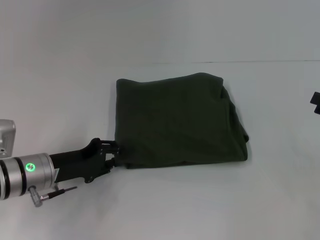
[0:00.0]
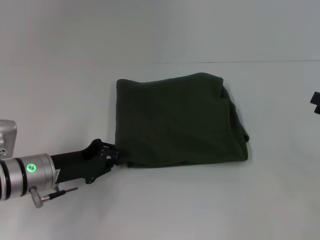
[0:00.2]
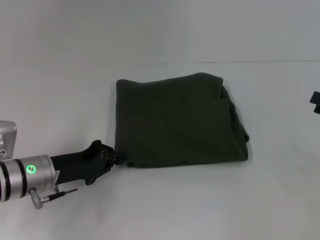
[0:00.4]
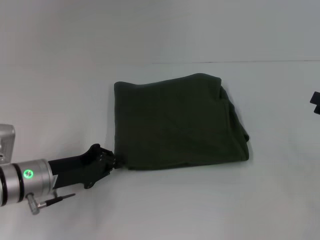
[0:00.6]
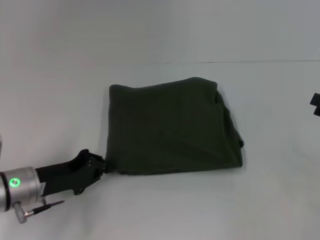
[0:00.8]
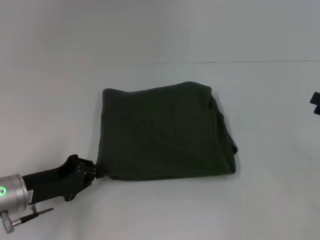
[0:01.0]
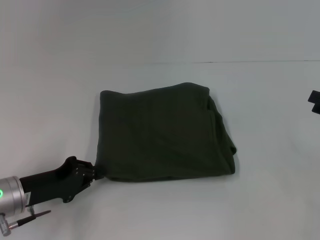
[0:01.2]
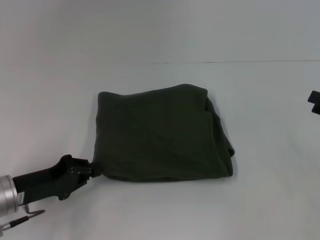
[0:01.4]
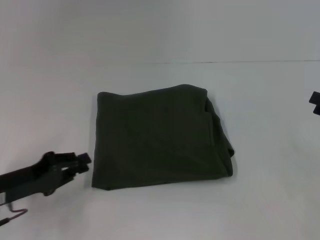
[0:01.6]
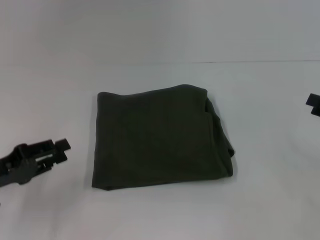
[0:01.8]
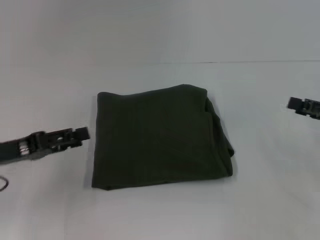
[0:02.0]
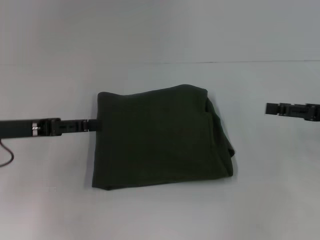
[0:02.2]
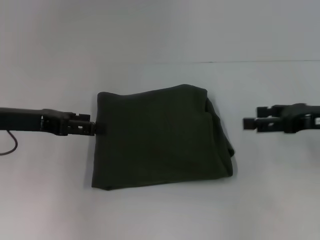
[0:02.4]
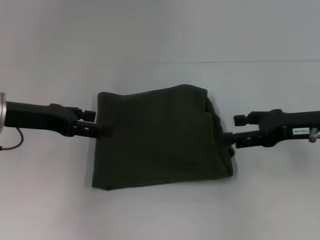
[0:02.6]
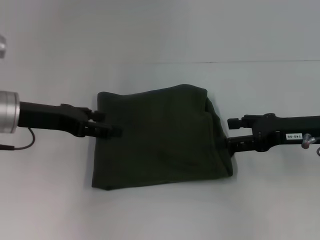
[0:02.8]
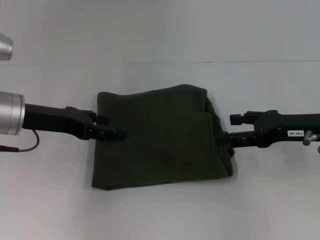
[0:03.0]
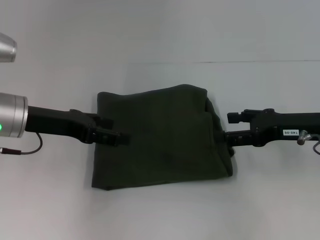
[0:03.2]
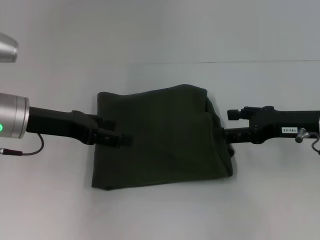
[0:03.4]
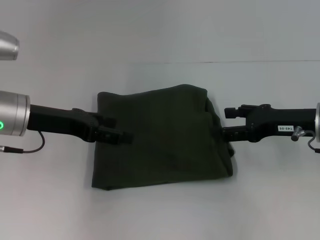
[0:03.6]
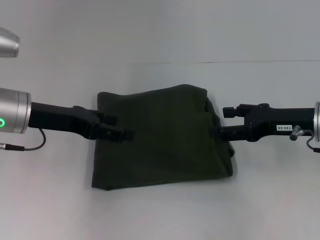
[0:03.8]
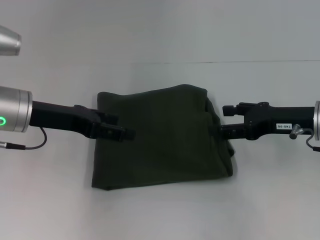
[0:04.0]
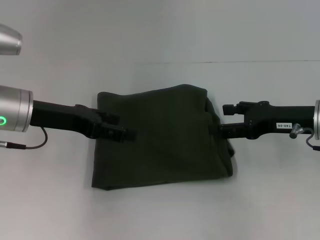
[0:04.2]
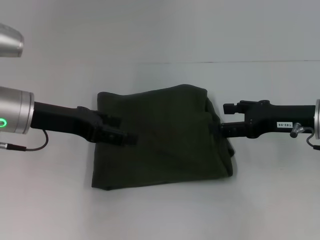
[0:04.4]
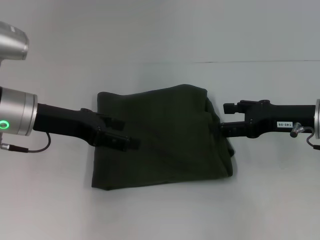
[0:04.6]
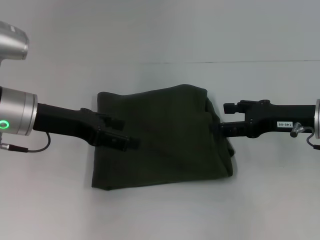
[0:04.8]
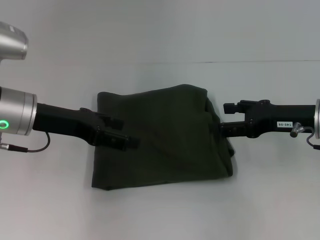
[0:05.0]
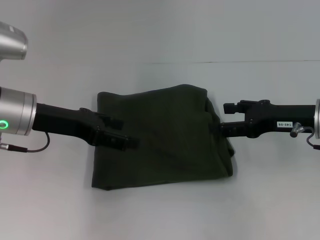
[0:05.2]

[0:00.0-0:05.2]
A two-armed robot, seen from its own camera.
0:00.0 to 0:01.8: The left gripper shifts approximately 10 cm to the left and backward, and closes.
0:01.8 to 0:03.4: The left gripper travels forward, upward and to the right by about 15 cm, and opens up, while the right gripper shifts approximately 10 cm to the left.
0:03.4 to 0:05.2: The grippers stay close to where they were, moving slightly.
